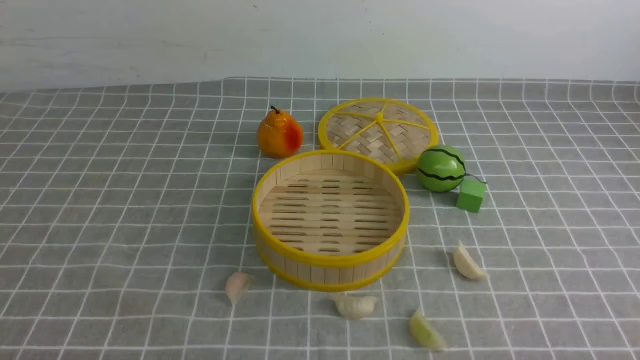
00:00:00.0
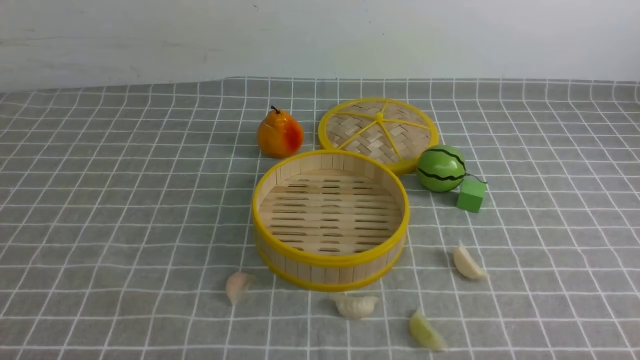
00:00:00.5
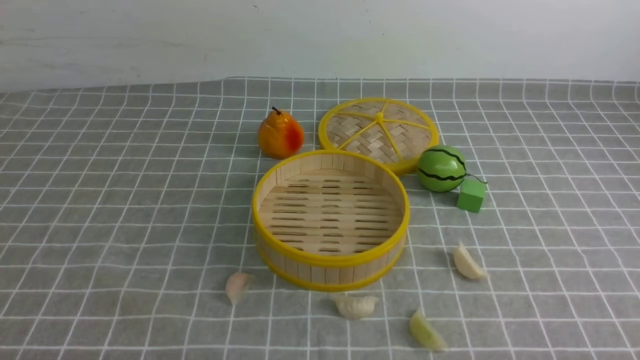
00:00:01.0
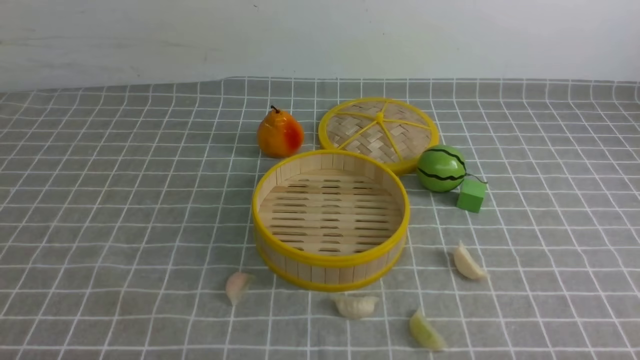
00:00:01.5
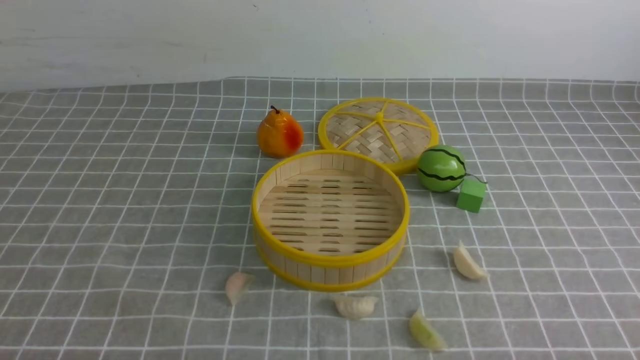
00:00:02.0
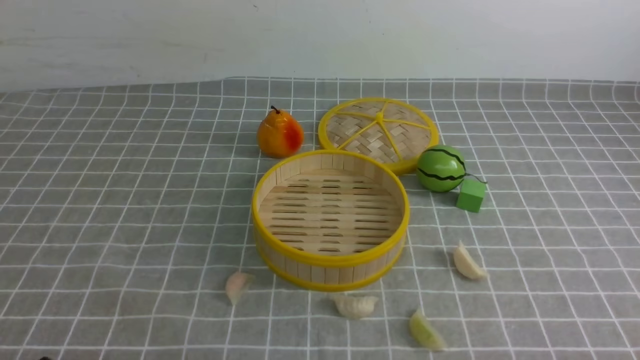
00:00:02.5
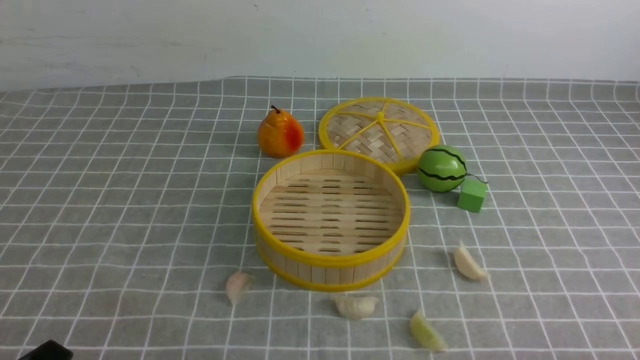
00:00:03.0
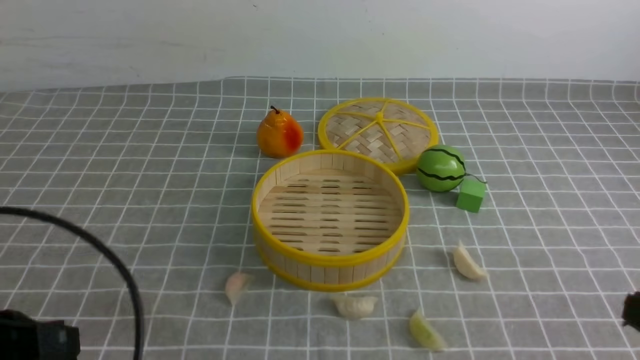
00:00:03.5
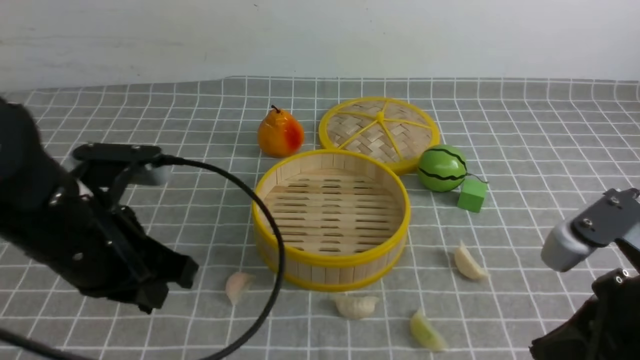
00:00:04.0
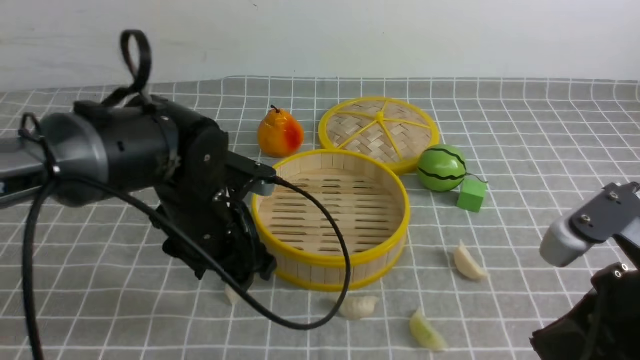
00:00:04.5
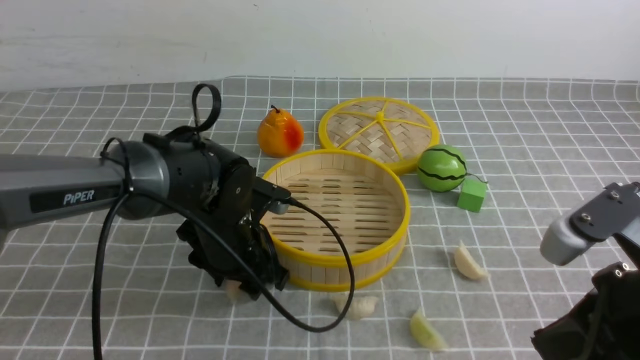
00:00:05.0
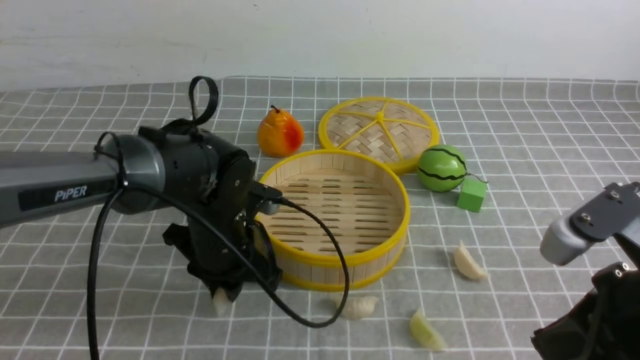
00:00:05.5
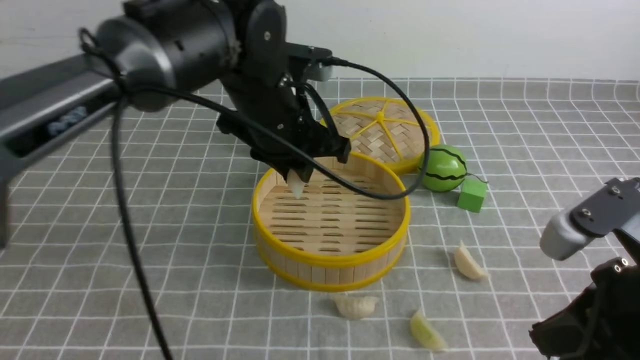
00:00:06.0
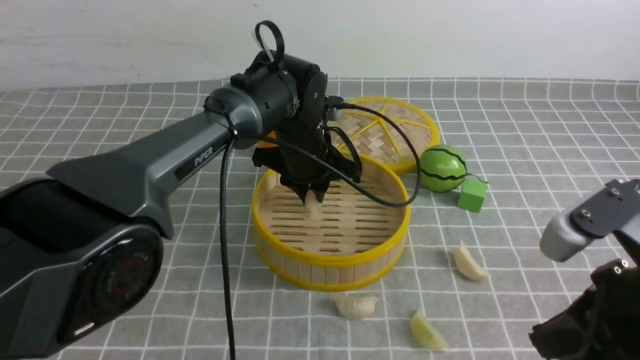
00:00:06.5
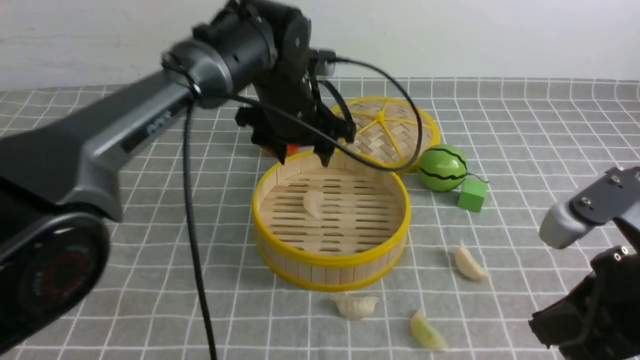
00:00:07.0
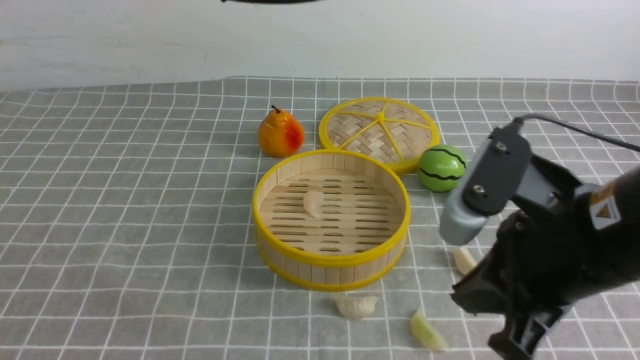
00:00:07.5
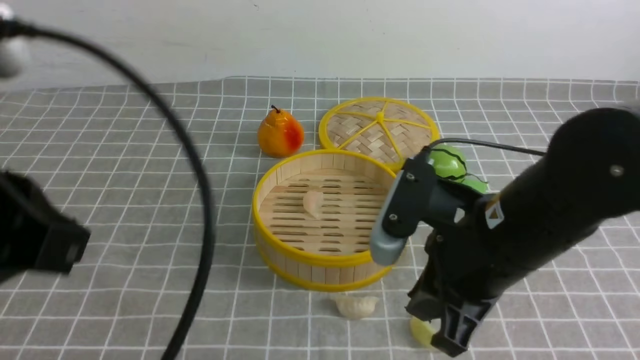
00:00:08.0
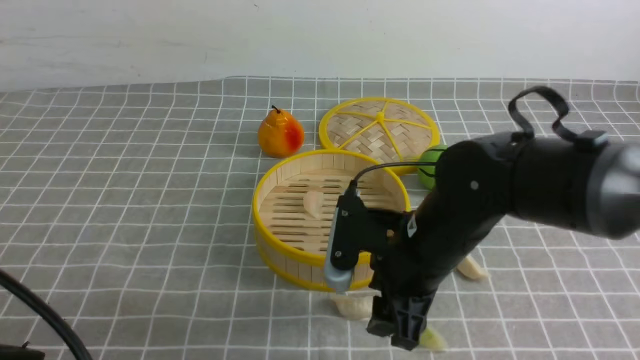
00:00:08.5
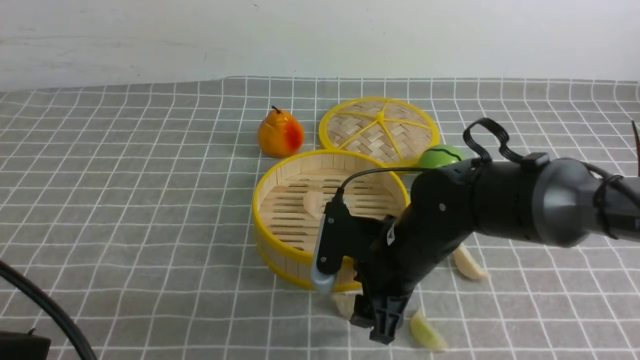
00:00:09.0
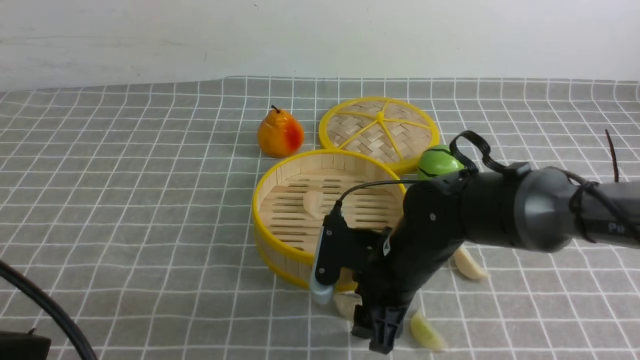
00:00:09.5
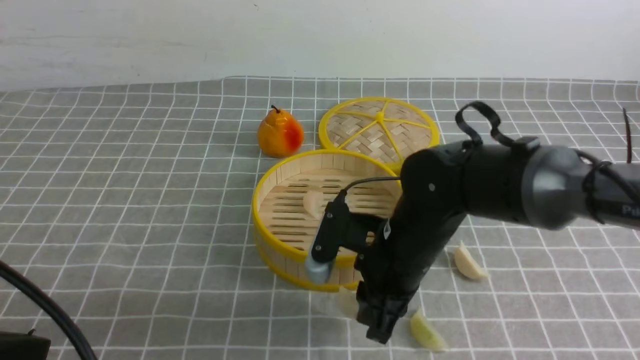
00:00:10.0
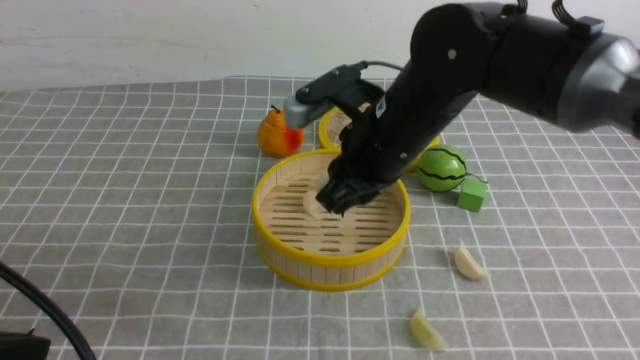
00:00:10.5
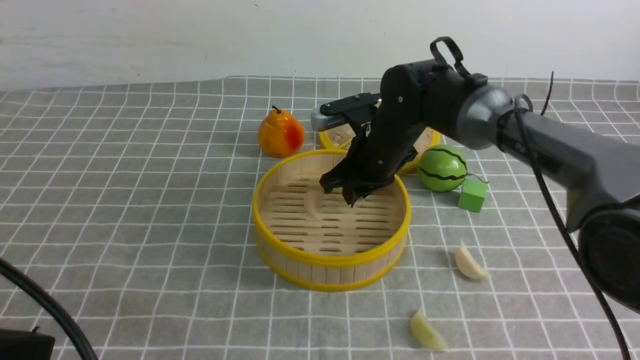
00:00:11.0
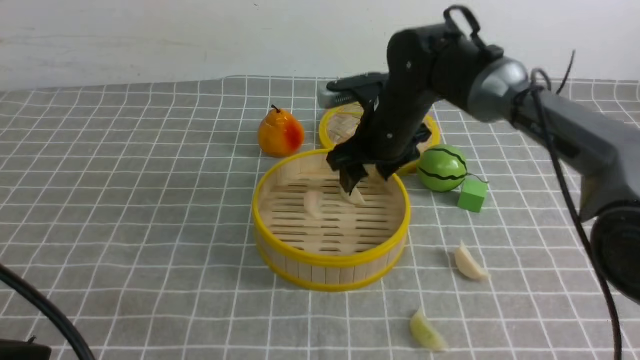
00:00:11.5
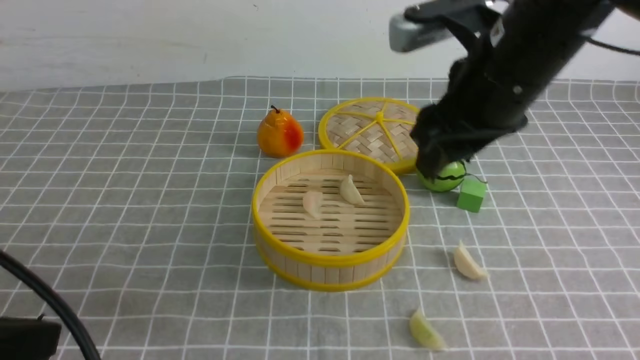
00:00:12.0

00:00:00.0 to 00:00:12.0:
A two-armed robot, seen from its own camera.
Task of the whole recording: put the dumplings into the steamer on the table with the grey tablecloth.
Step, 00:00:00.0 to 00:00:05.5: use the left arm to grab a dumpling.
Step, 00:00:06.0 to 00:00:06.5: use the left arm to put the dumpling into the steamer.
Step, 00:00:07.0 to 00:00:10.0: use the right arm to grab a dumpling.
Step, 00:00:10.5 to 00:00:11.0: use the right arm to put the dumpling into the steamer.
00:00:02.0 to 00:00:04.0: The left gripper shifts about 20 cm forward, upward and to the right, and closes, while the right gripper goes roughly 15 cm upward, forward and to the left, and closes up.
00:00:04.0 to 00:00:06.0: The left gripper goes some 20 cm forward and to the right, and opens and closes again.
00:00:06.0 to 00:00:08.0: The left gripper moves backward, upward and to the left, roughly 30 cm, and closes; the right gripper moves to the left and forward, approximately 10 cm.
00:00:08.0 to 00:00:10.0: The right gripper shifts roughly 15 cm downward, forward and to the left, and opens, then closes once more, while the left gripper shifts some 10 cm downward and backward.
00:00:10.0 to 00:00:12.0: The right gripper moves up and down over about 20 cm, changing direction 2 times, and opens up.

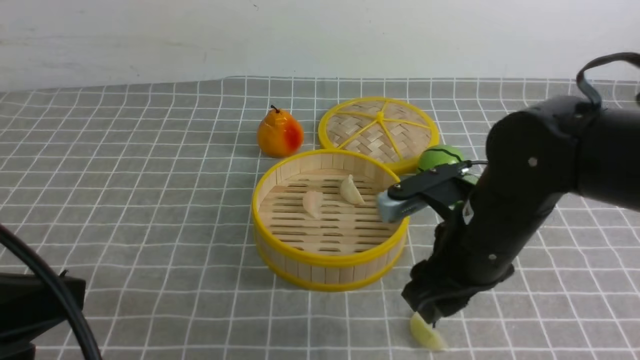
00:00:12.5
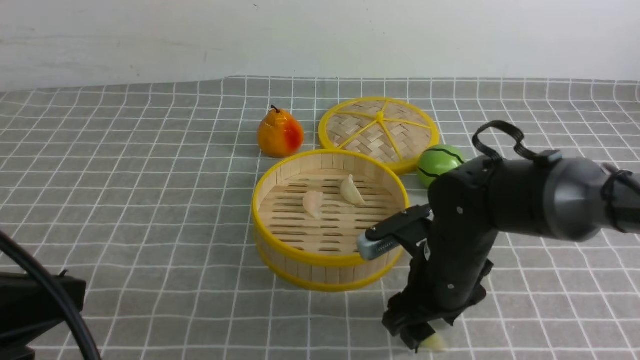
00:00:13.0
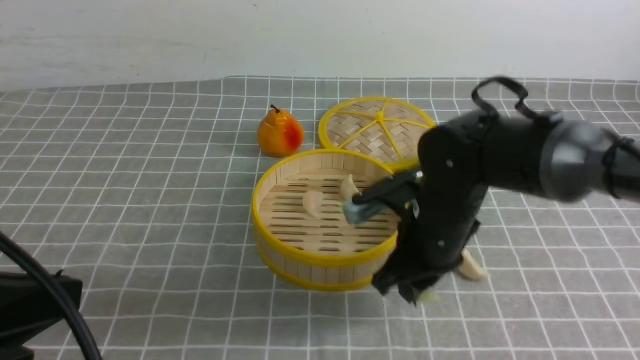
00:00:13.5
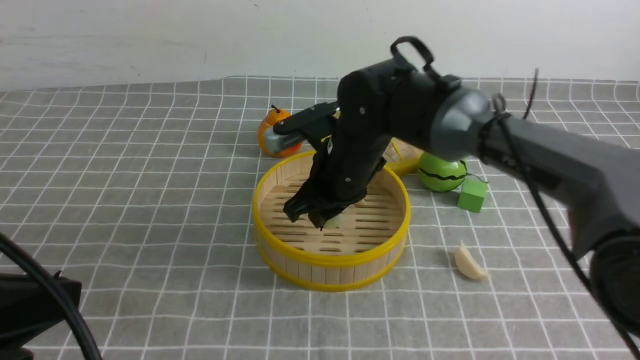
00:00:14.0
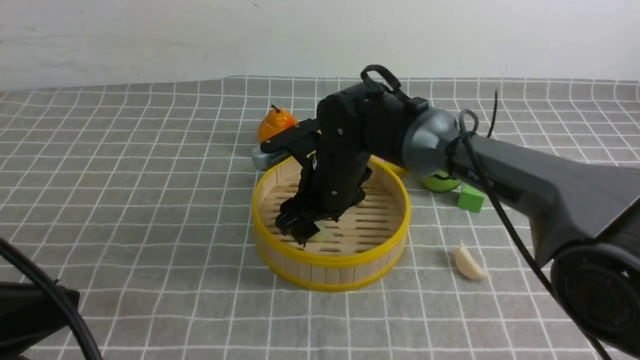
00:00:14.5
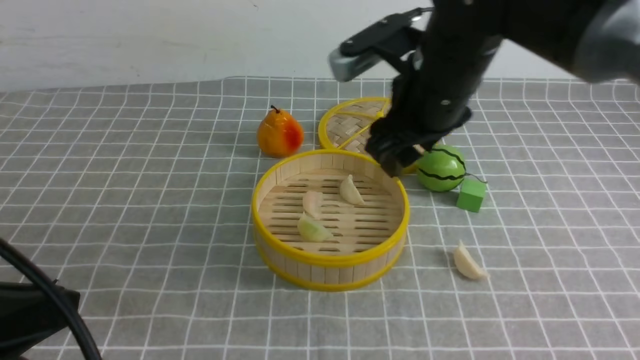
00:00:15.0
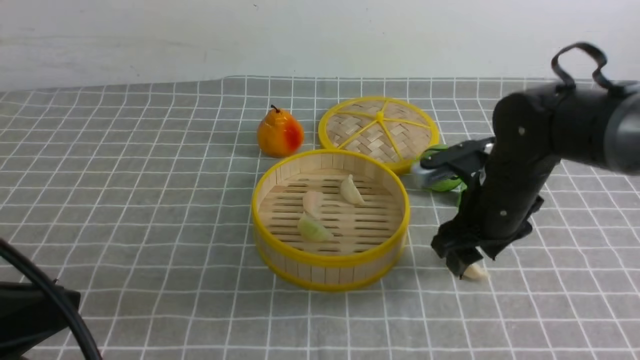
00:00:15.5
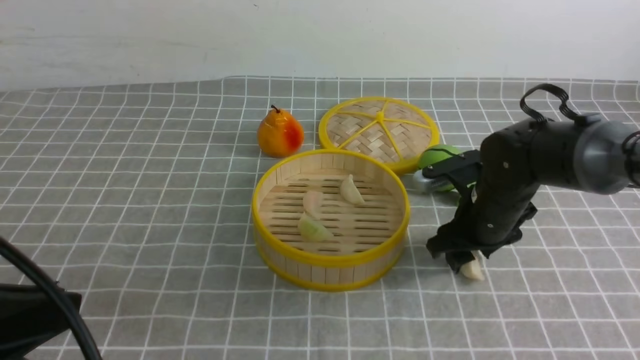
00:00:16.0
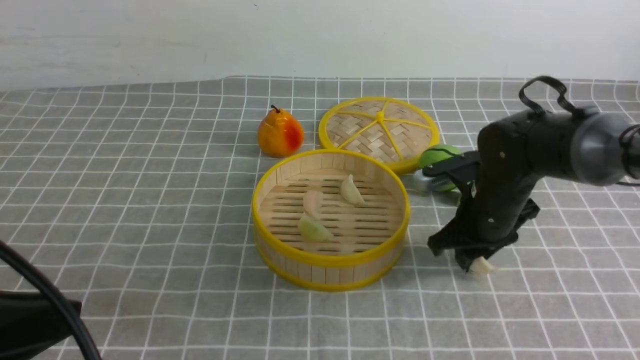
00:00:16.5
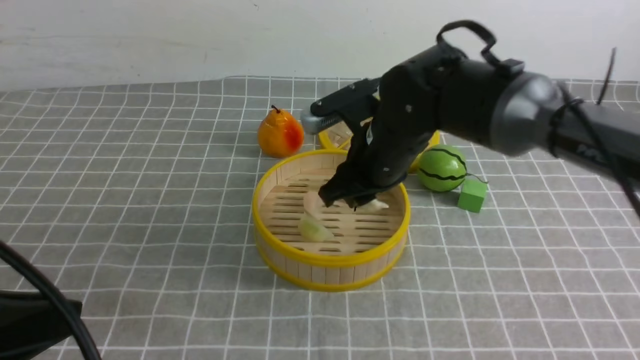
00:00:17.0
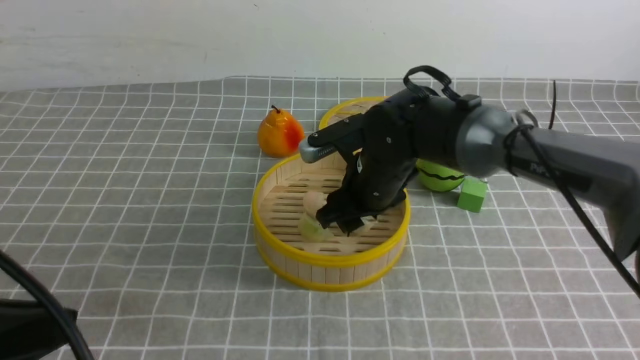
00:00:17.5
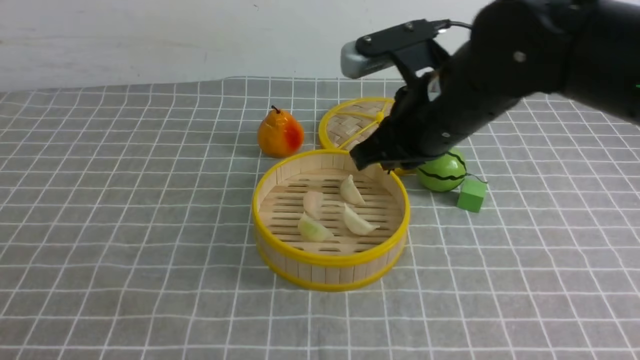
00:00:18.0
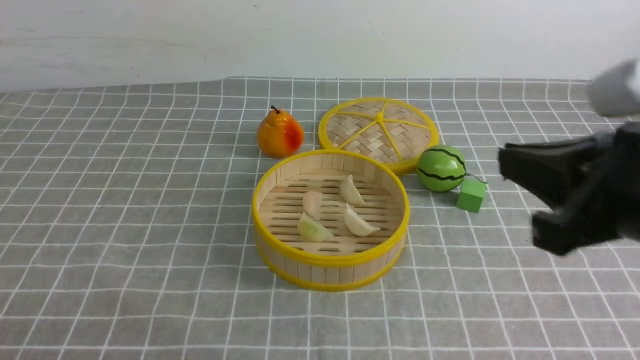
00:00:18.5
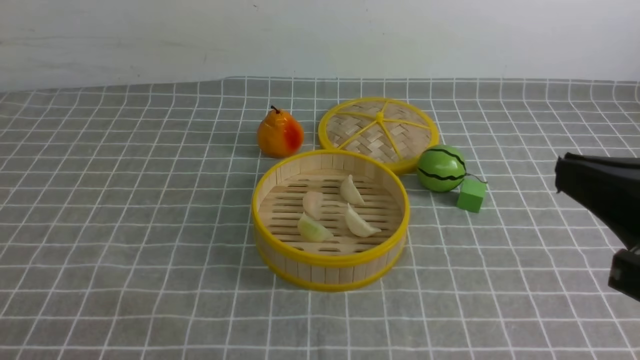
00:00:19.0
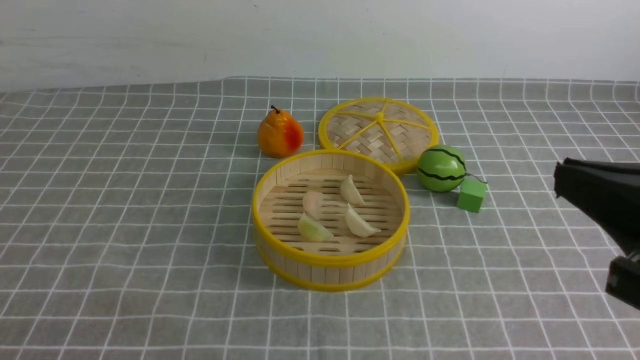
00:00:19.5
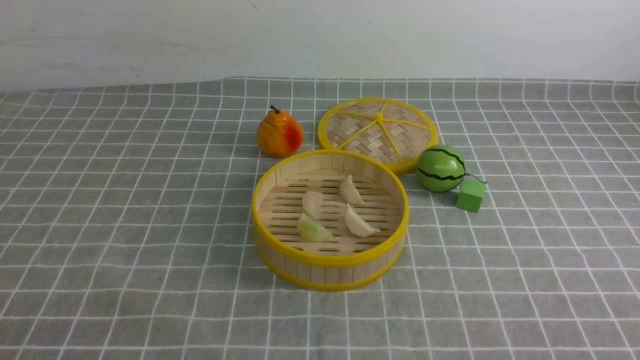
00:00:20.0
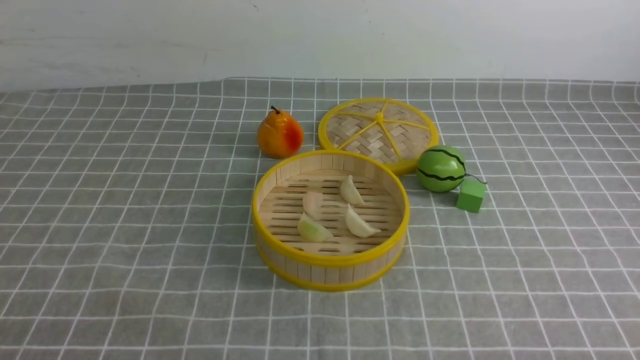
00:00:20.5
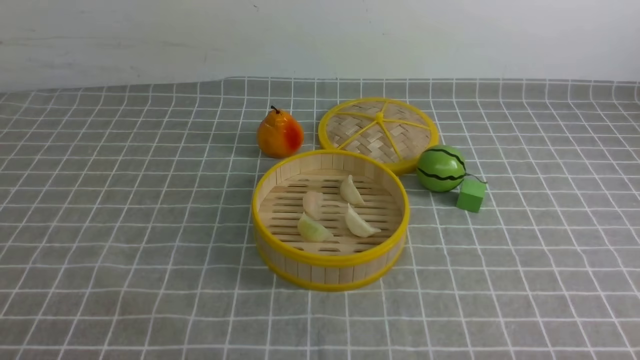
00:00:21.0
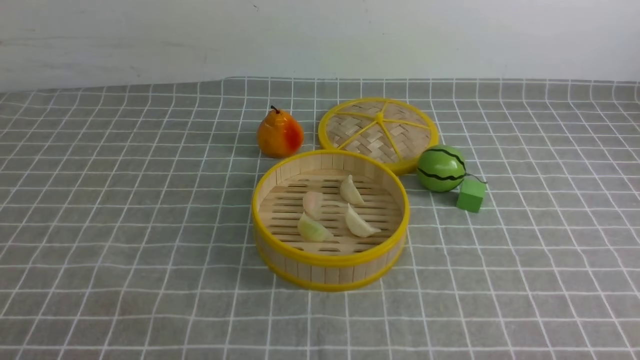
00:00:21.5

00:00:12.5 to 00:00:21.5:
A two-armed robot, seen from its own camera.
Task of the whole recording: put the dumplings into the steamer on the table with the grey tablecloth.
Step, 00:00:13.5 to 00:00:14.5: use the right arm to put the dumpling into the steamer.
Step, 00:00:15.0 to 00:00:16.5: use the right arm to grab a dumpling.
Step, 00:00:17.0 to 00:00:17.5: use the right arm to put the dumpling into the steamer.
00:00:12.5 to 00:00:14.5: The right gripper travels to the left and forward by some 20 cm, and closes, then opens again.
00:00:14.5 to 00:00:17.0: The right gripper travels to the right by roughly 10 cm, and closes up.
00:00:17.0 to 00:00:19.5: The right gripper goes approximately 30 cm backward, to the right and upward, and closes; the left gripper is displaced backward and to the left by about 10 cm.
00:00:19.5 to 00:00:21.5: The right gripper heads downward, to the right and backward, covering about 20 cm.
